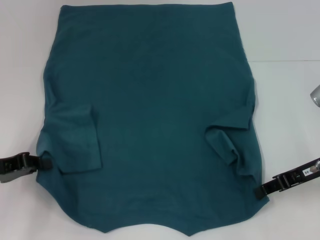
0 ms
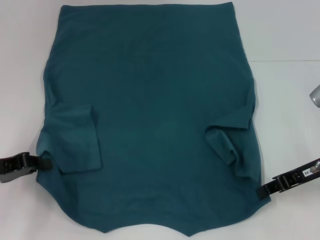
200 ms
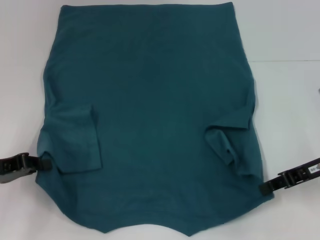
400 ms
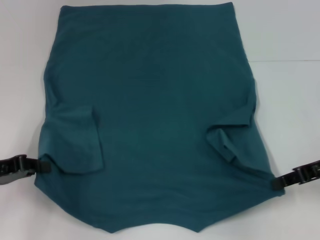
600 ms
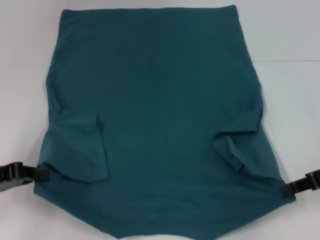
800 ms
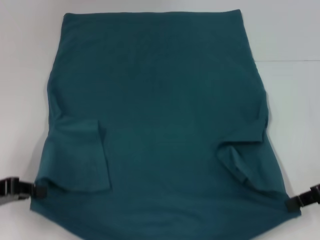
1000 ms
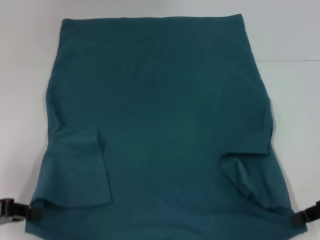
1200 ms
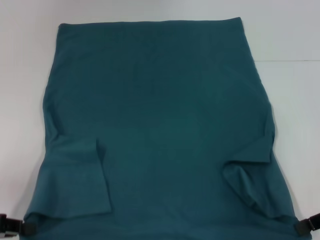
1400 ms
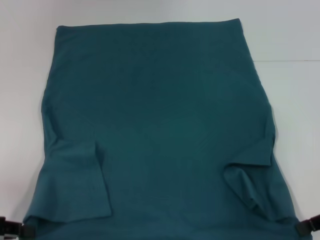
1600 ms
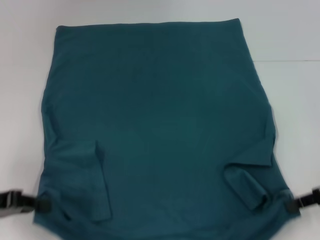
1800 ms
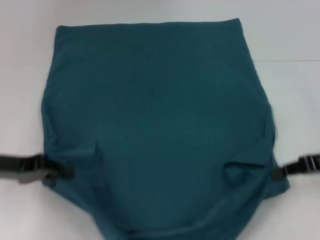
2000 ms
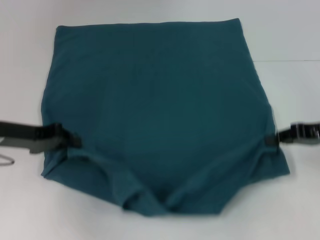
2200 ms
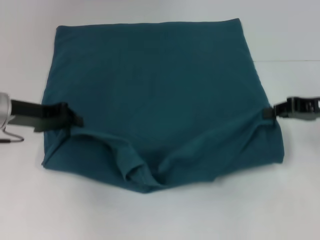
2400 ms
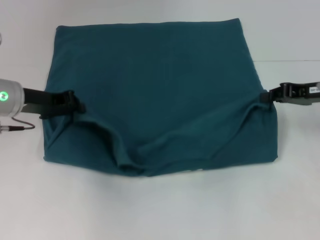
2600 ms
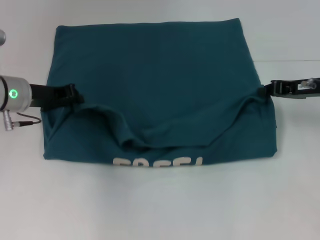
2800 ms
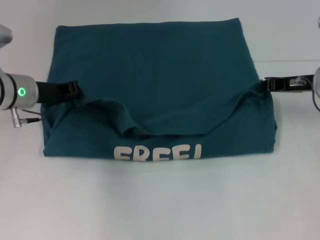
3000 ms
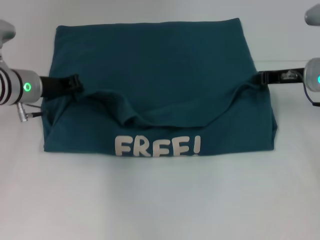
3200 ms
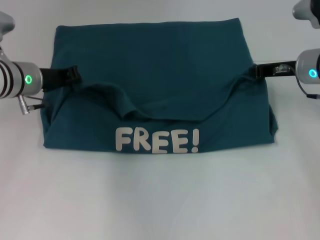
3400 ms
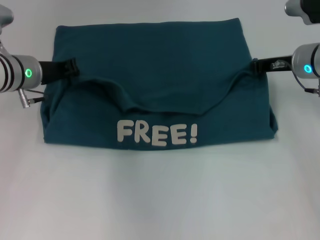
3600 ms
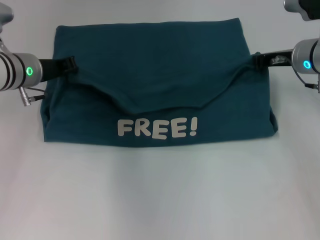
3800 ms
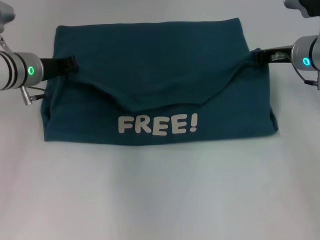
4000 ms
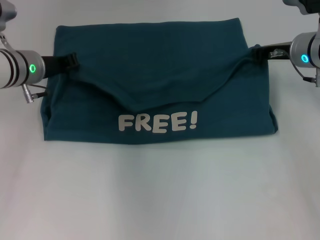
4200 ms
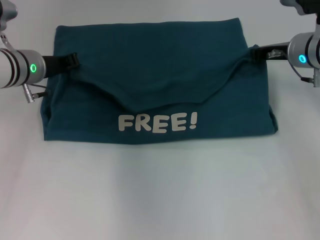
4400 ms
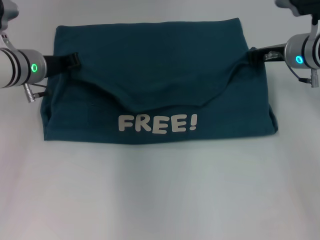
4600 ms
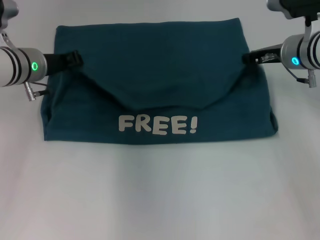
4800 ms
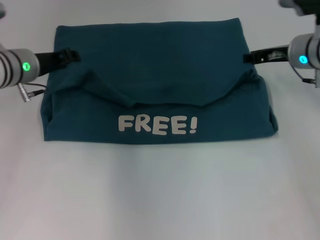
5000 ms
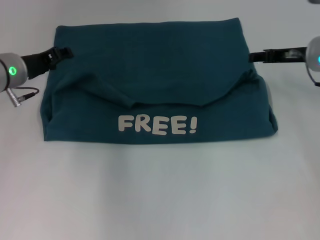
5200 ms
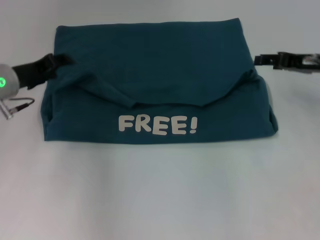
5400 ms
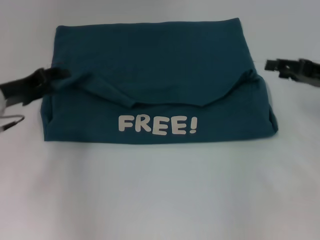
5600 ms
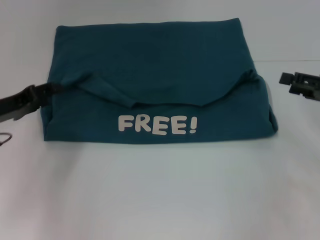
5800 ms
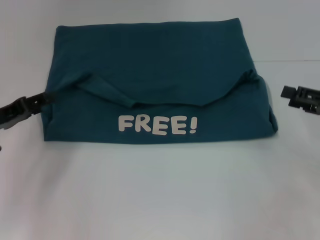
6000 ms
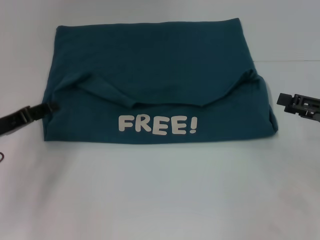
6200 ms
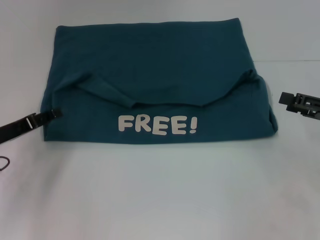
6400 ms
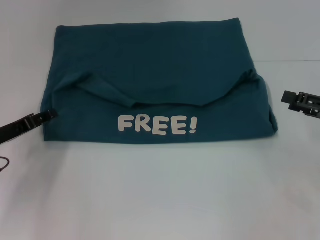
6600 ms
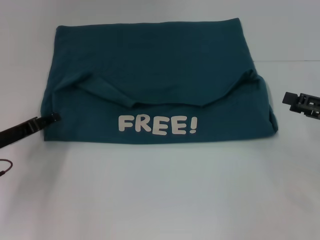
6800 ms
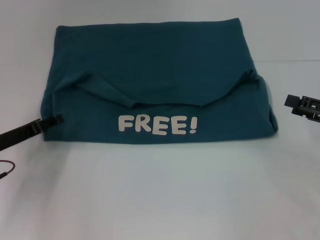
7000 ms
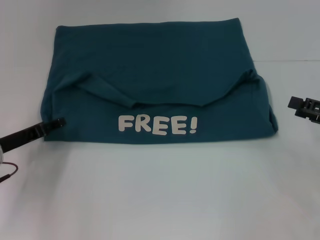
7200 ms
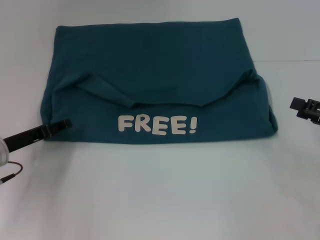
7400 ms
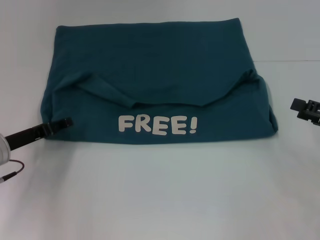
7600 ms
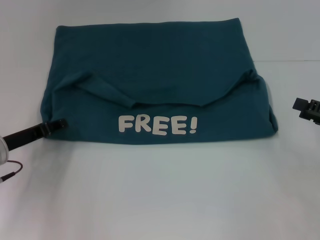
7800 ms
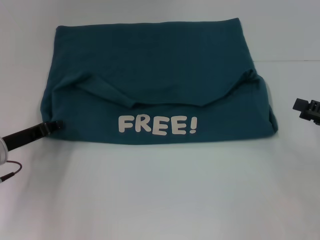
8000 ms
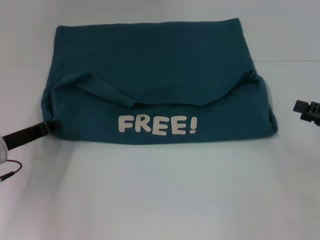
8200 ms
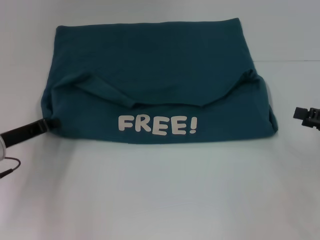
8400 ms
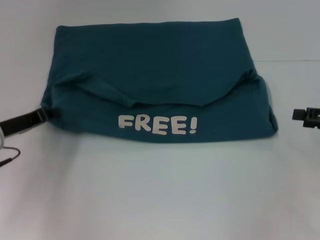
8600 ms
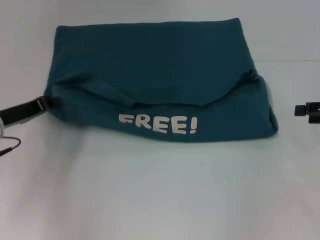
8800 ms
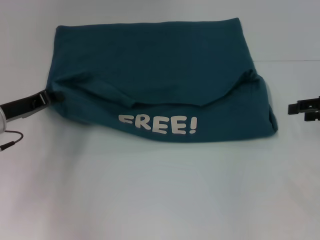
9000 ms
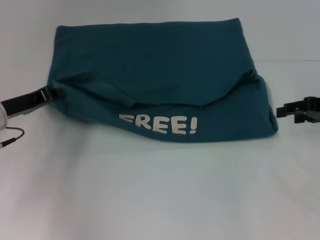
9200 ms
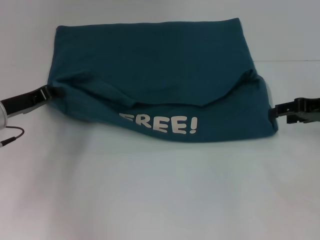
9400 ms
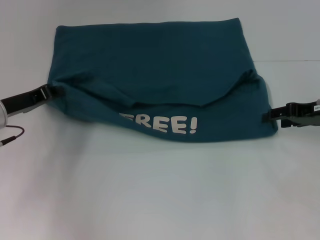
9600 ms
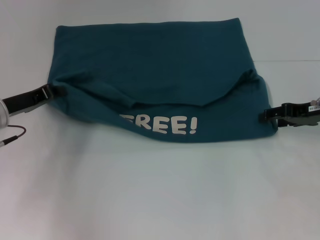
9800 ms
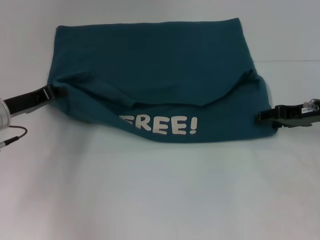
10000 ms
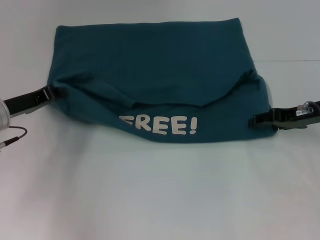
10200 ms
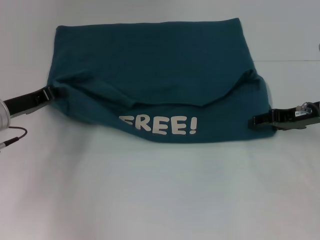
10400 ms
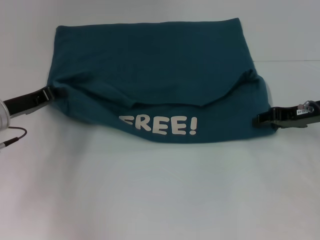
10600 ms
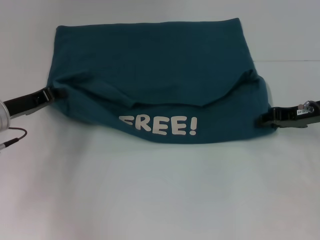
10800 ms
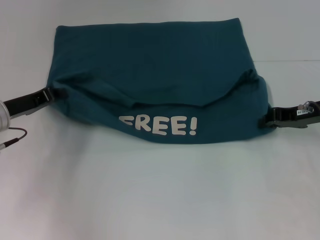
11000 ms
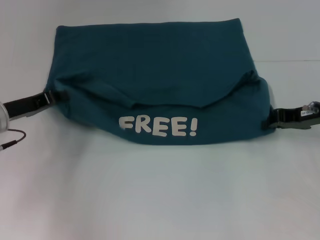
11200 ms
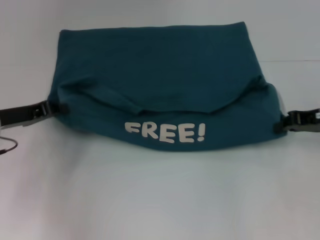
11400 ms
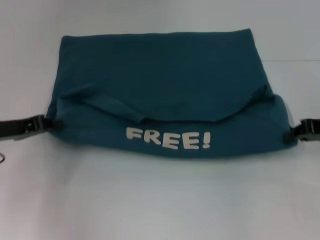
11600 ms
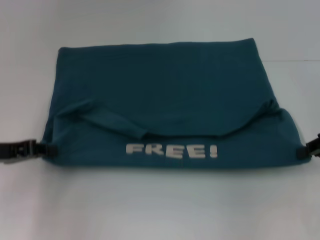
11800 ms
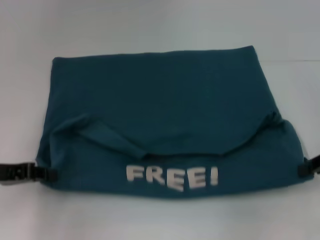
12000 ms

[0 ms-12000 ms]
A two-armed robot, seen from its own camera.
Step, 200 ms to 4800 ms: Fold the clothes to the left.
Step, 200 ms to 4800 ms: Fold the clothes to the right.
0 ms to 1600 ms: The left gripper heads backward, covering about 5 cm, while the right gripper goes roughly 10 cm backward and to the right, and closes.
1600 ms to 3000 ms: The left gripper moves forward and to the right, approximately 25 cm. The right gripper travels forward and to the left by approximately 15 cm.
3000 ms to 4400 ms: The right gripper moves approximately 5 cm.
4400 ms to 6000 ms: The left gripper travels backward and to the left by some 15 cm, and opens, while the right gripper goes approximately 20 cm backward and to the right, and opens.
6000 ms to 7600 ms: The left gripper ends up about 5 cm from where it was.
7600 ms to 9000 ms: The left gripper closes its fingers. Meanwhile the right gripper moves forward, approximately 5 cm.
9000 ms to 10400 ms: The right gripper is displaced to the left by roughly 5 cm.
10400 ms to 12000 ms: The right gripper goes approximately 10 cm backward and to the right, and closes its fingers; the left gripper is displaced backward by about 10 cm.

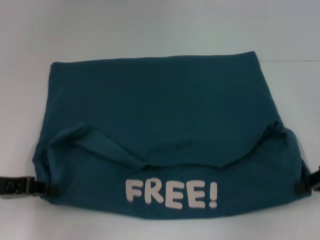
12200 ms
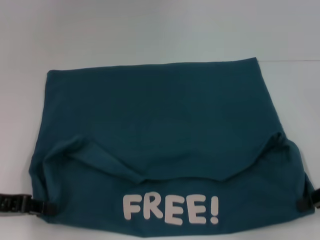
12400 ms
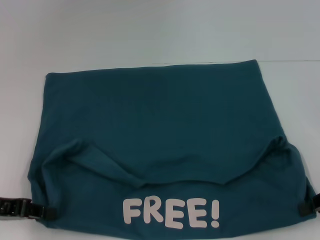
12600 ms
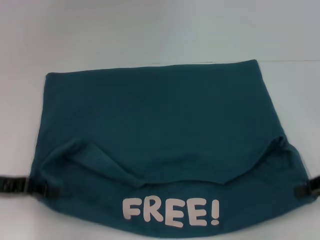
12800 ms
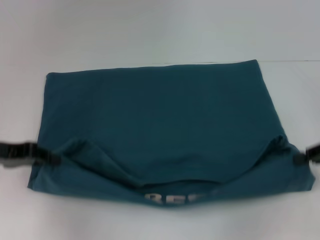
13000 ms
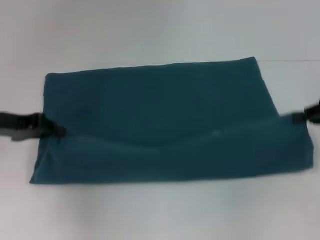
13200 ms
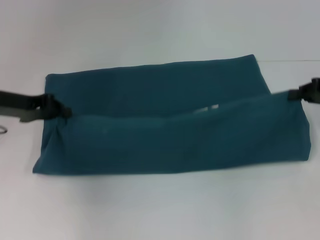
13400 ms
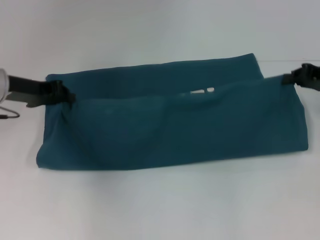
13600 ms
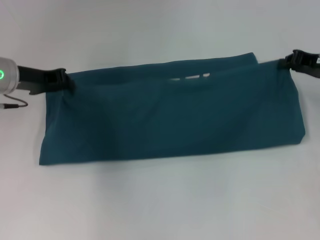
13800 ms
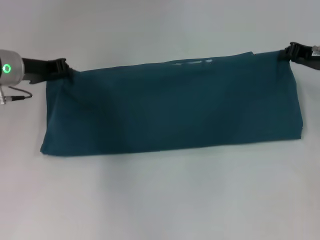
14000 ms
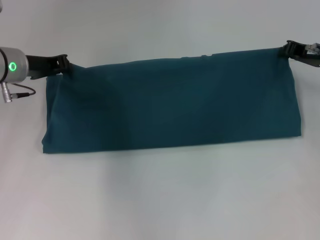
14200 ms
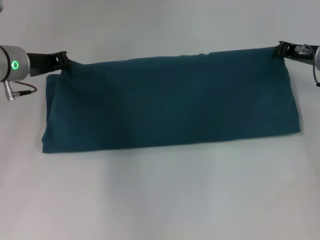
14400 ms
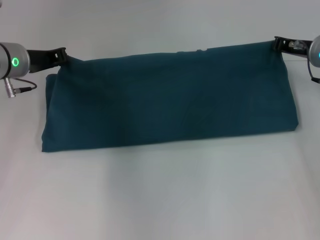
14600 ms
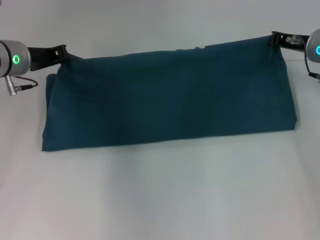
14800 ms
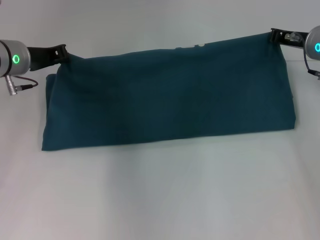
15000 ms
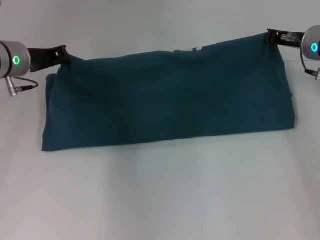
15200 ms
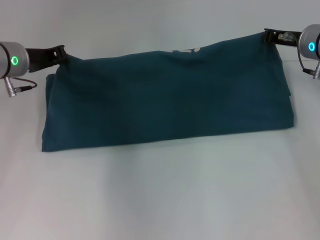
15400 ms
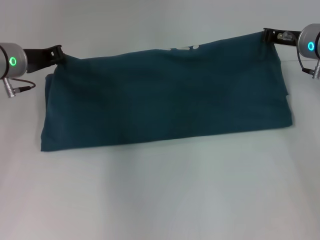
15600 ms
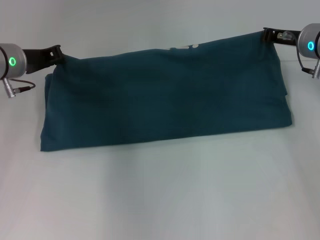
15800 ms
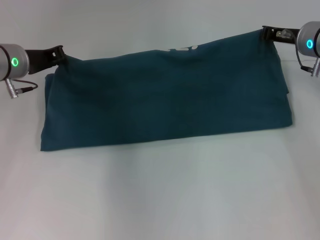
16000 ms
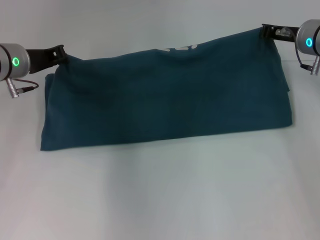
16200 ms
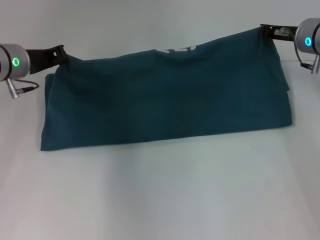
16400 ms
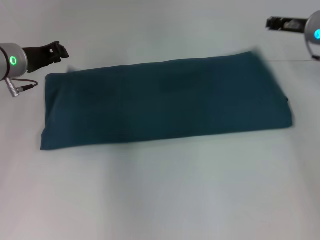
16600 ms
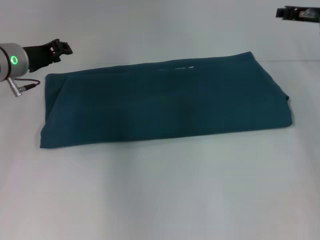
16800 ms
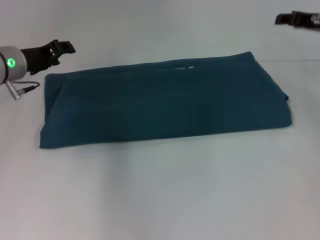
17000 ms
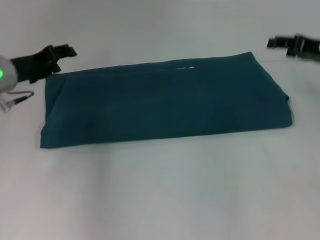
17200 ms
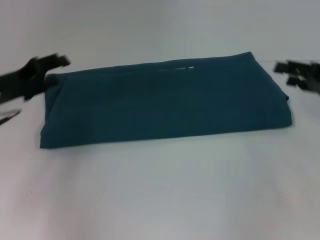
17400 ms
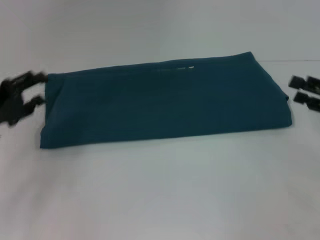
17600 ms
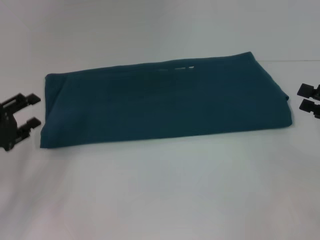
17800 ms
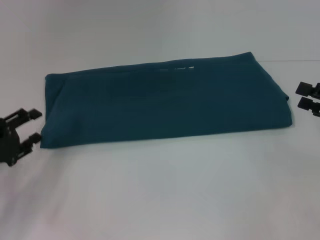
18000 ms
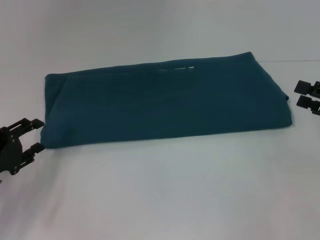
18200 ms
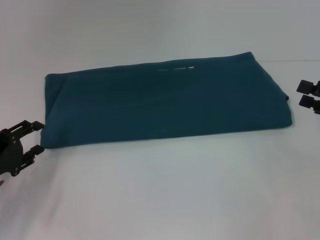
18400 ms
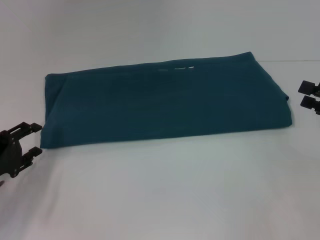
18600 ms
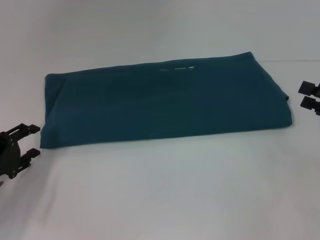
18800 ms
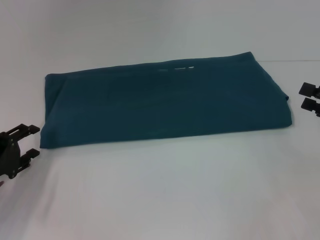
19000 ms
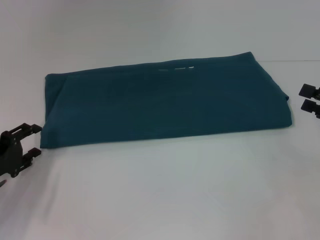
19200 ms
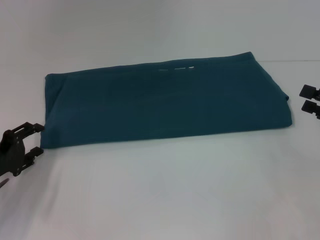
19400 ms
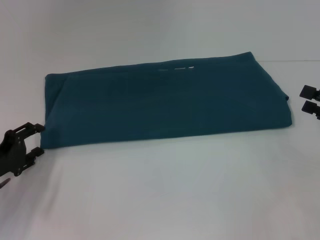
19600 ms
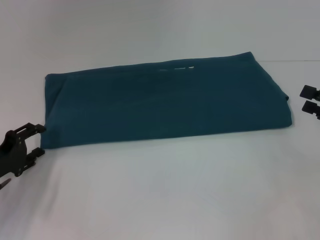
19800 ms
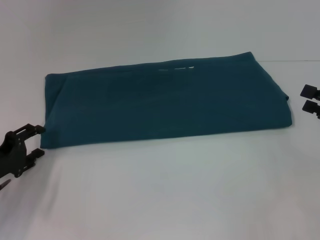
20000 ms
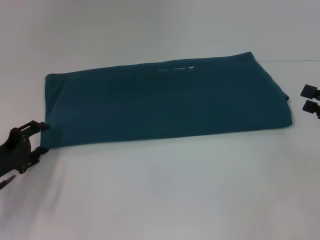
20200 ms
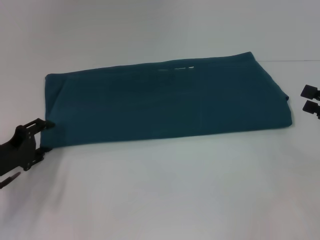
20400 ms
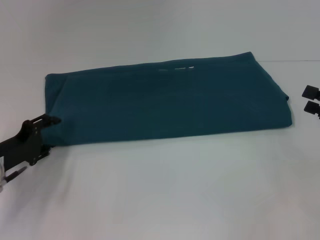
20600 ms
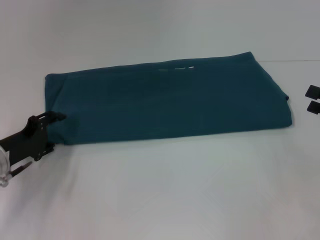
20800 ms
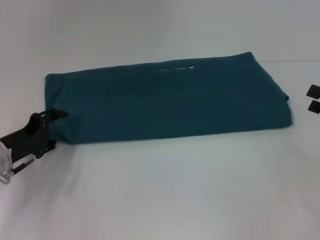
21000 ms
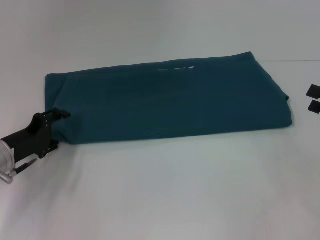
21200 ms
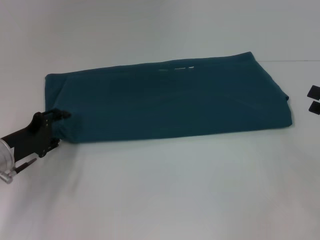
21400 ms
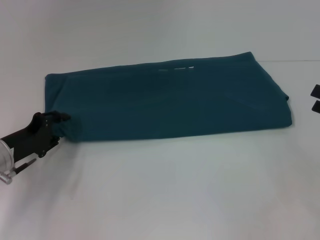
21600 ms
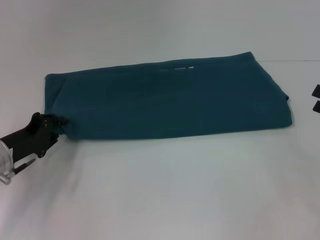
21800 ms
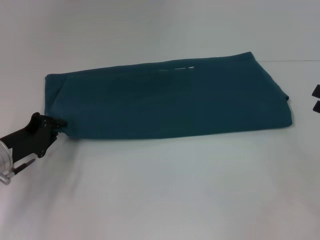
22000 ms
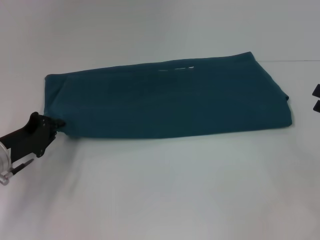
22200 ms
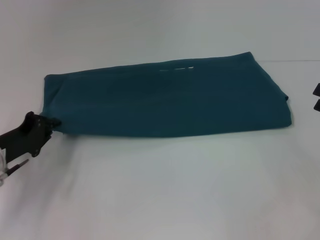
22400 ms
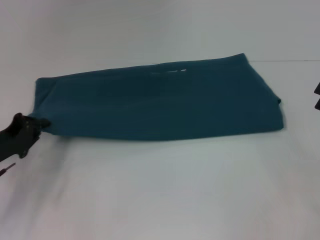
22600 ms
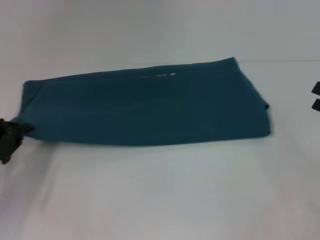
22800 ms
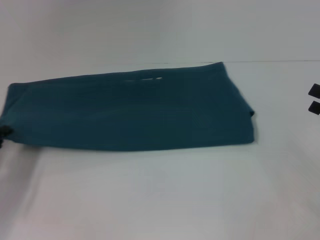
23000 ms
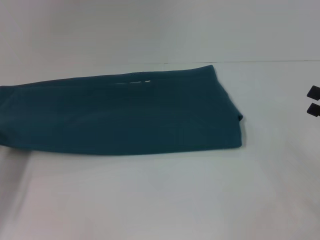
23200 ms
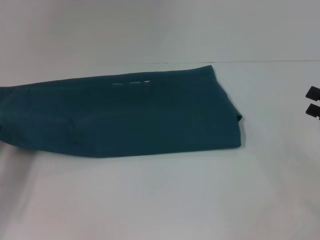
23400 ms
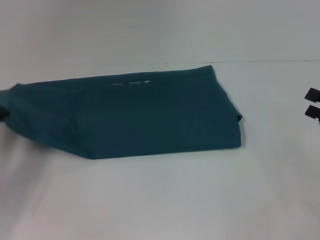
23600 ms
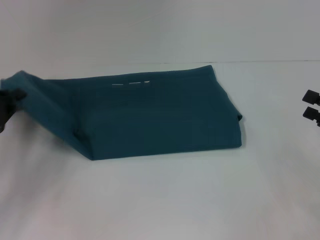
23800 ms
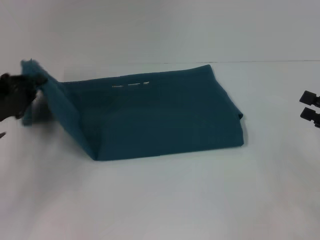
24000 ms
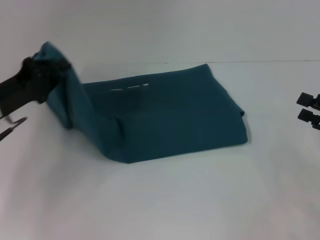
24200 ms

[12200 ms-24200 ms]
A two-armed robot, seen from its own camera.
Step, 12400 ms to 17200 ms: Fold the clothes to the right.
12200 ms to 13800 ms: The two grippers go some 15 cm forward.
13800 ms to 15200 ms: The right gripper moves to the left, some 5 cm.
15200 ms to 16600 ms: There are only small adjustments of the grippers.
16600 ms to 18200 ms: The right gripper shifts some 20 cm backward and to the right, and opens its fingers. Meanwhile the left gripper is displaced backward, downward and to the left by some 20 cm, and opens its fingers.
18200 ms to 19800 ms: The grippers stay close to where they were, moving slightly.
19800 ms to 21200 ms: The left gripper shifts by some 5 cm.
21200 ms to 22600 ms: The left gripper closes up.
22600 ms to 24200 ms: The left gripper shifts about 5 cm upward, and goes to the left and returns, about 5 cm each way.
